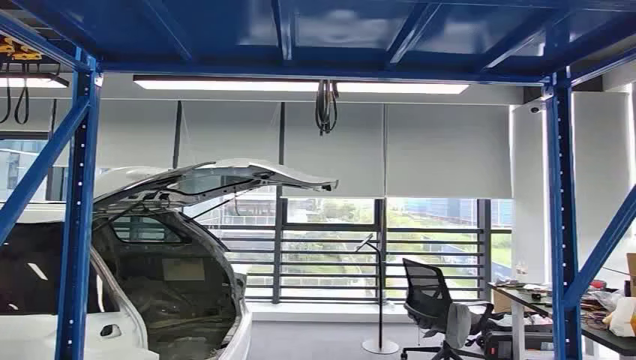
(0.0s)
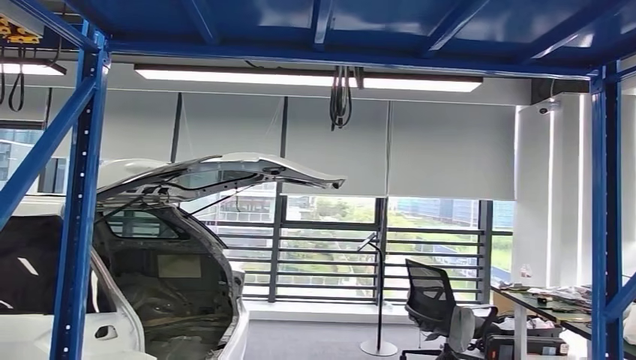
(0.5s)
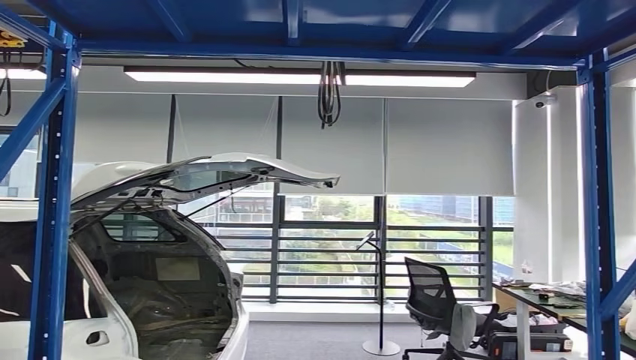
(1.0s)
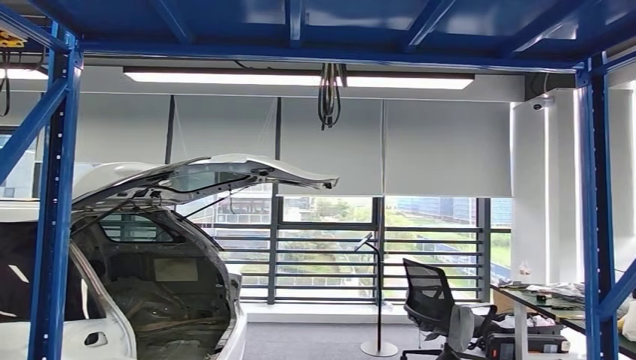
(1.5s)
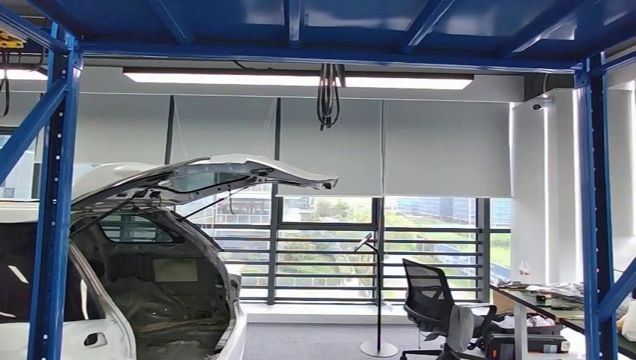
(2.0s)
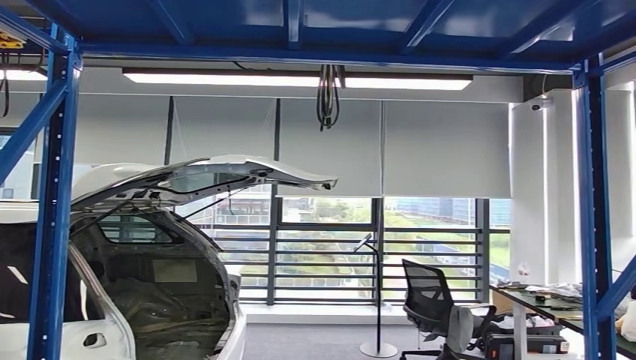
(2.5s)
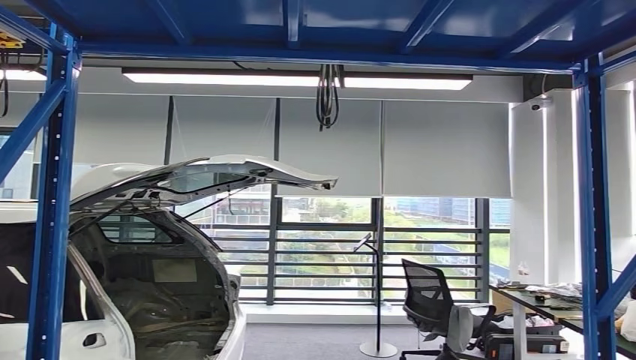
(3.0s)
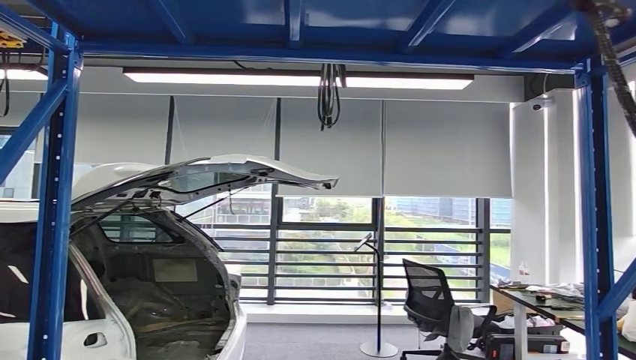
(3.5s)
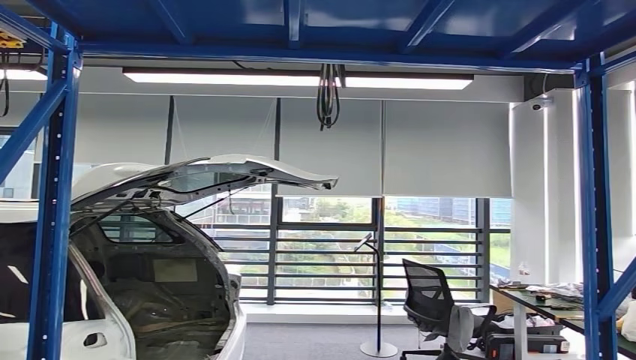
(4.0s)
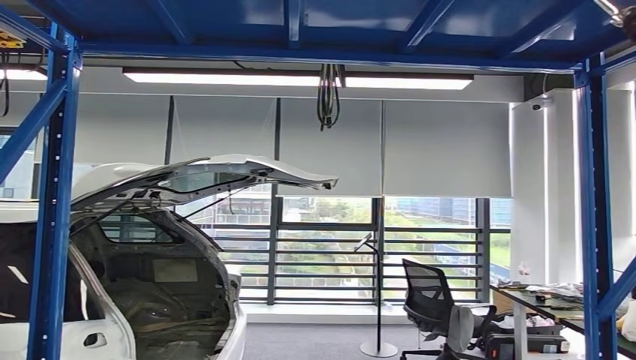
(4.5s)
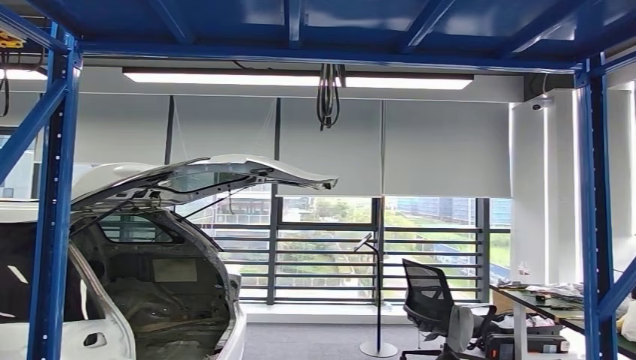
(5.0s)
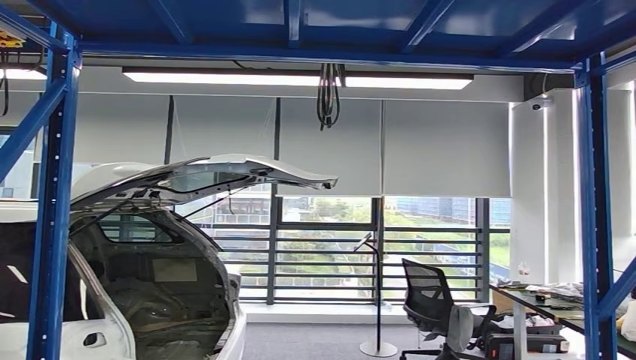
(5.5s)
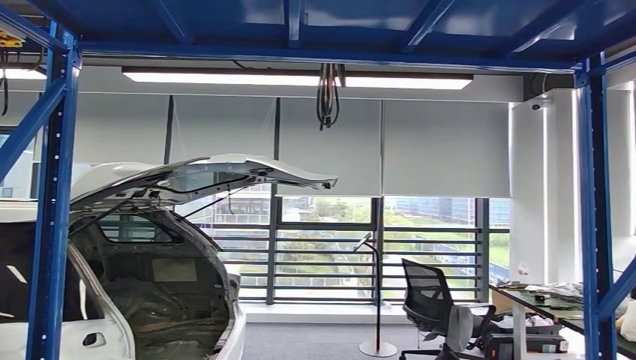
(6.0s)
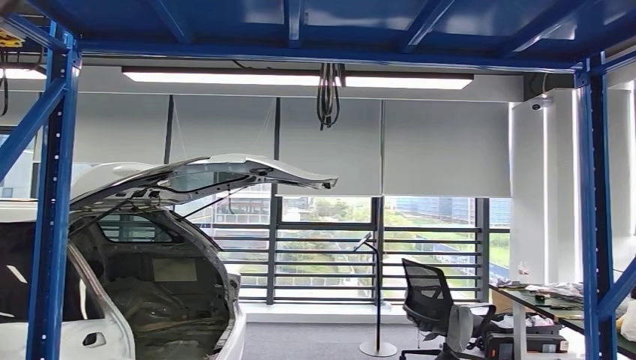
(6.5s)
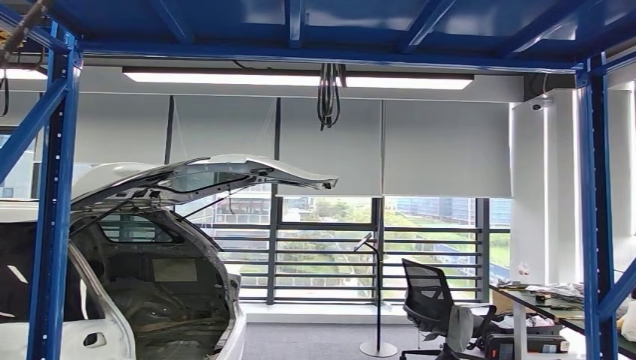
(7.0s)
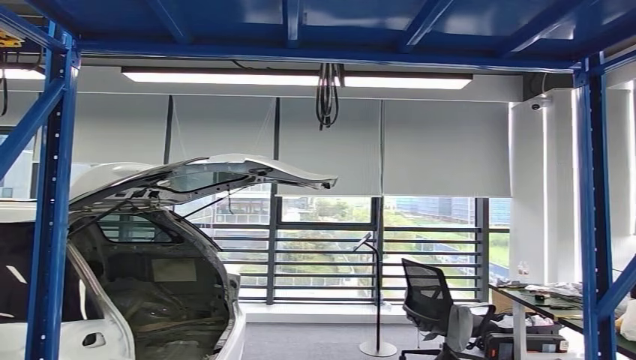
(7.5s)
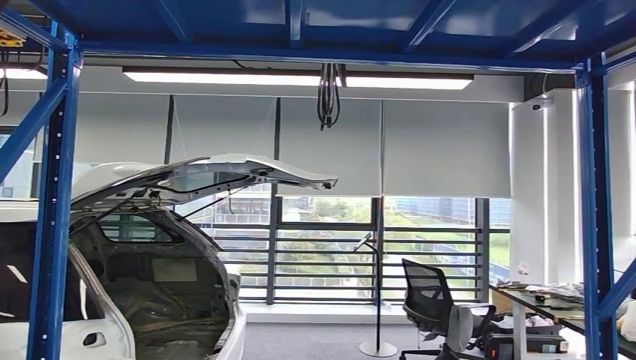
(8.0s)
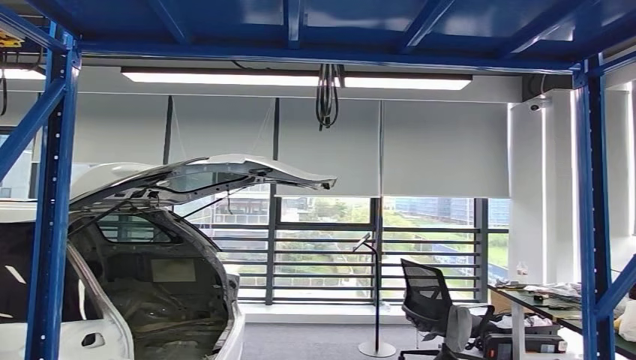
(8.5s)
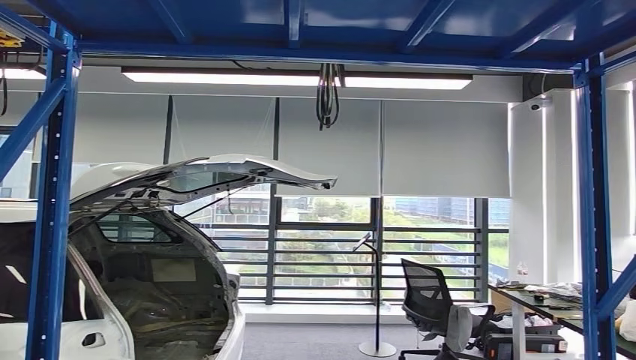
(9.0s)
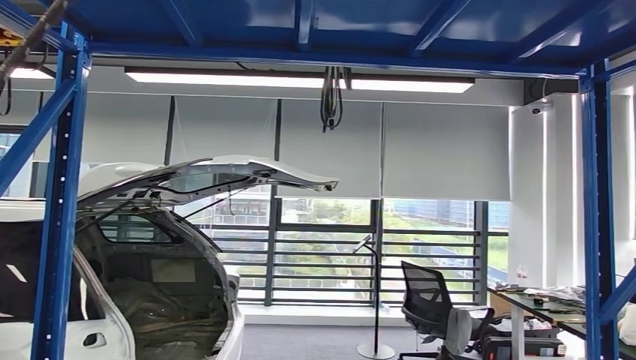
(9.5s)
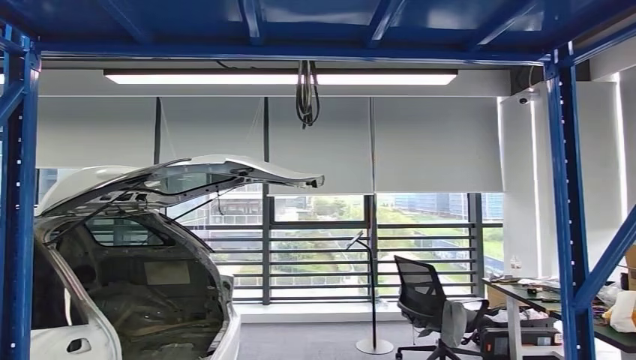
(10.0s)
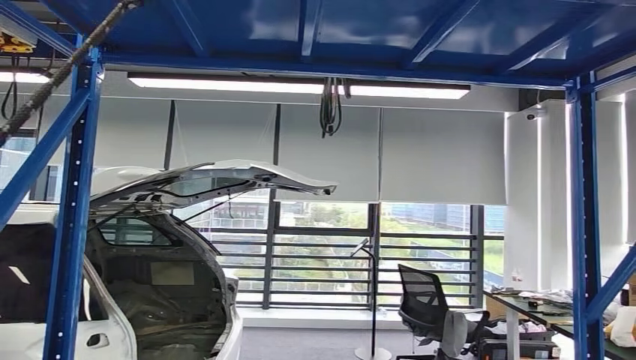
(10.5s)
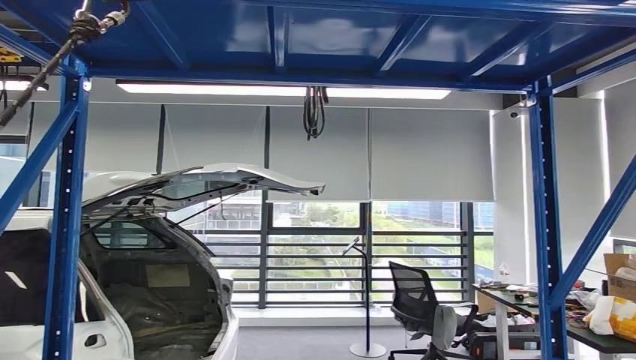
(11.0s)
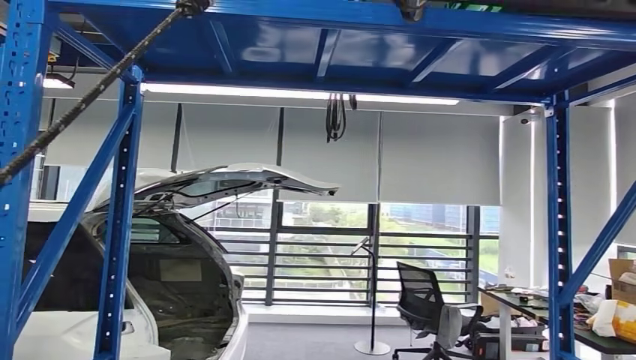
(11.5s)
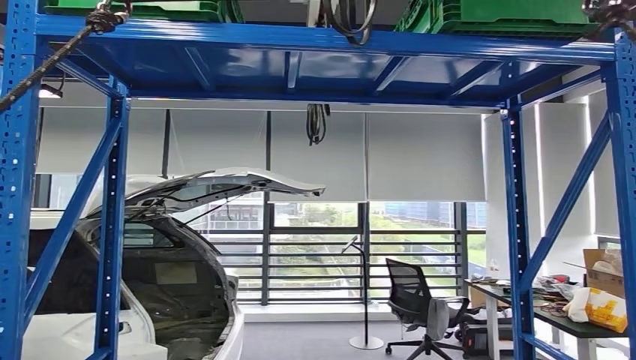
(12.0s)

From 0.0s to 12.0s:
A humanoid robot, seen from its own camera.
Step, from 0.0s to 7.0s: Pick up the small parts from the shelf.
From 4.0s to 6.0s: The right hand travels to the left by approximately 15 cm; the left hand shifts by some 5 cm.

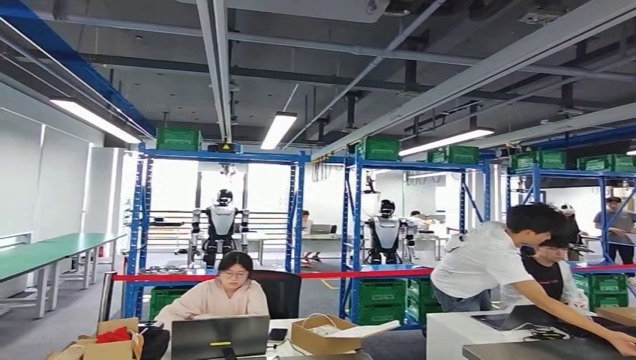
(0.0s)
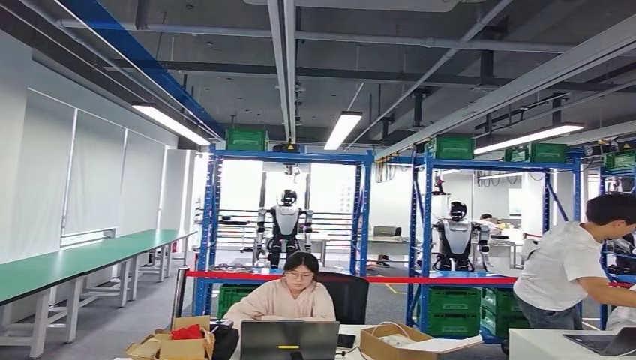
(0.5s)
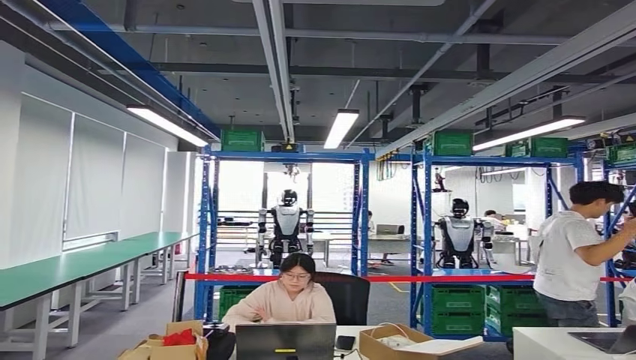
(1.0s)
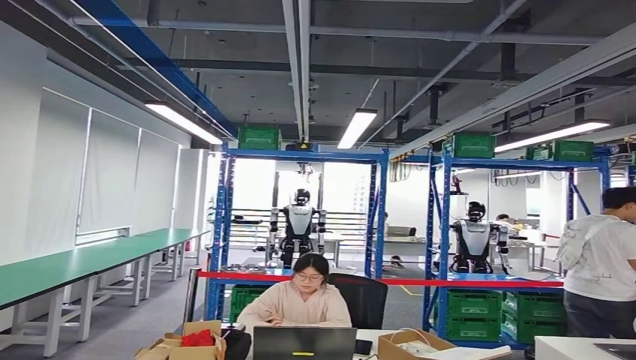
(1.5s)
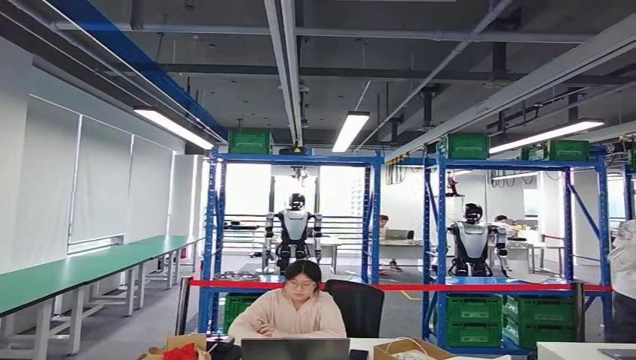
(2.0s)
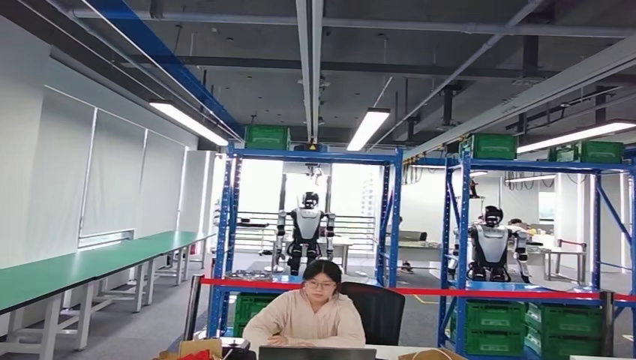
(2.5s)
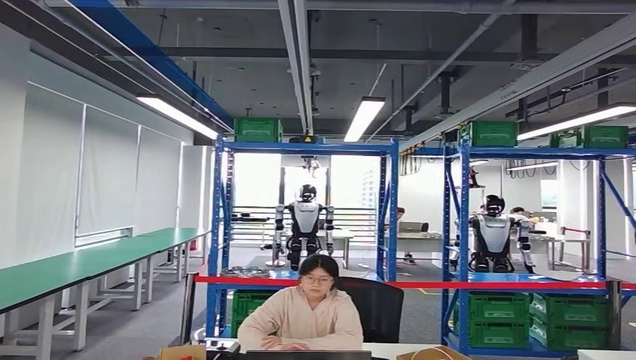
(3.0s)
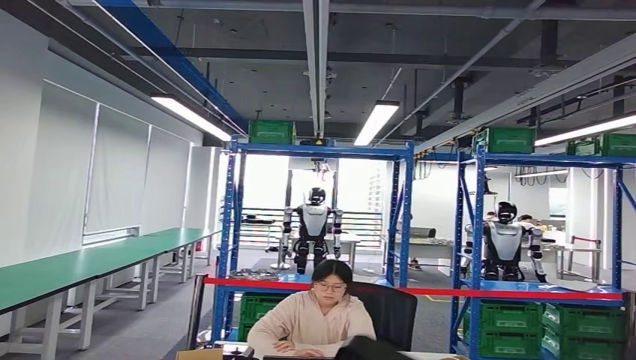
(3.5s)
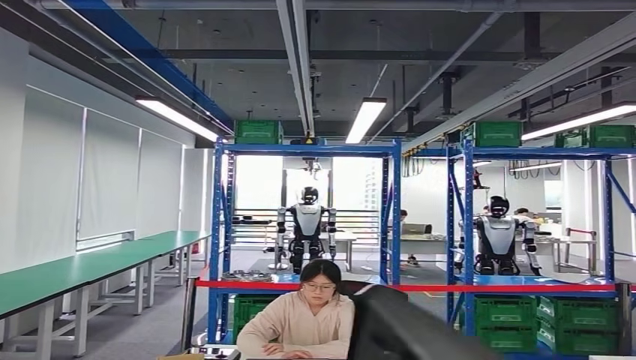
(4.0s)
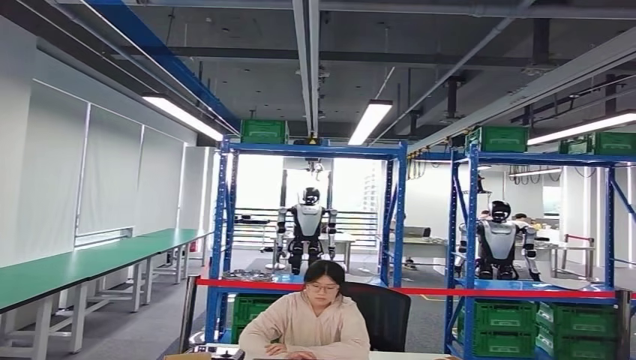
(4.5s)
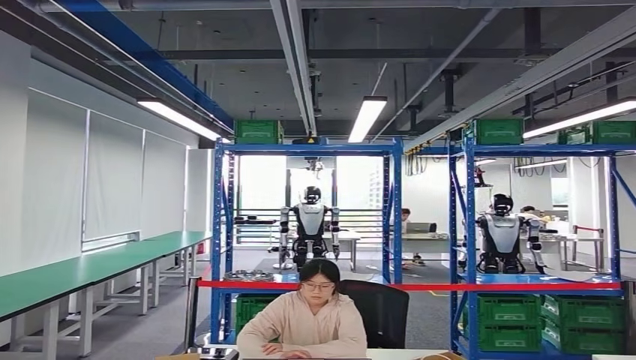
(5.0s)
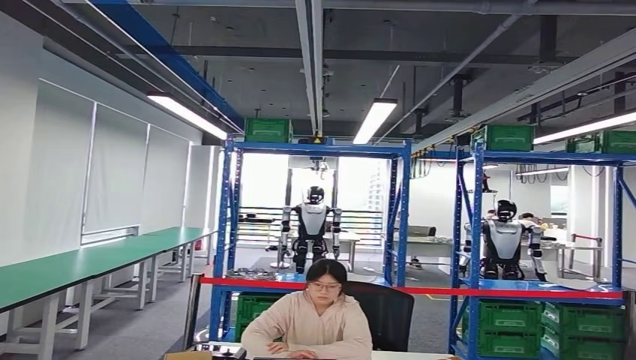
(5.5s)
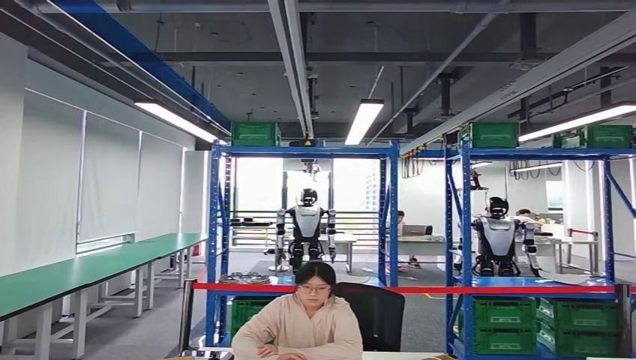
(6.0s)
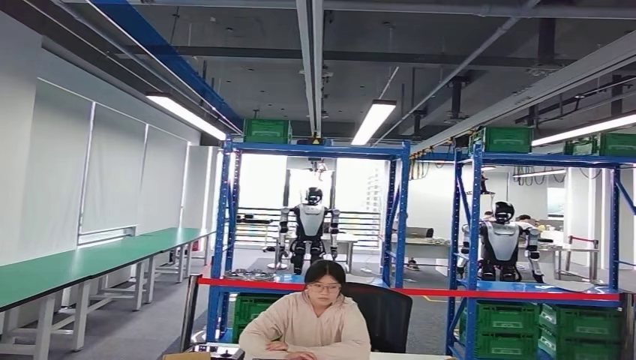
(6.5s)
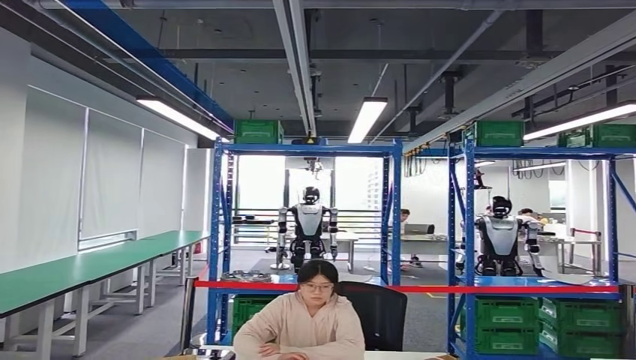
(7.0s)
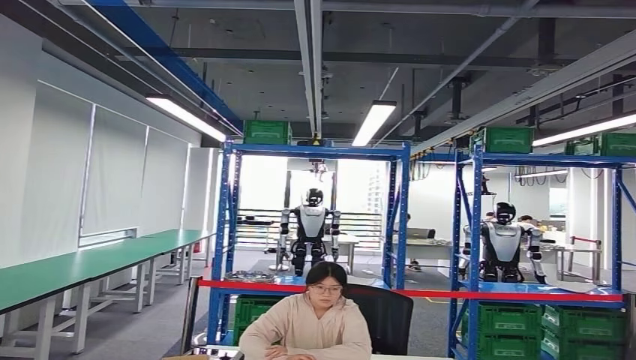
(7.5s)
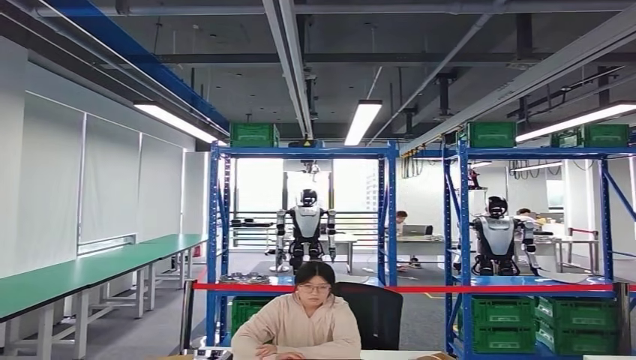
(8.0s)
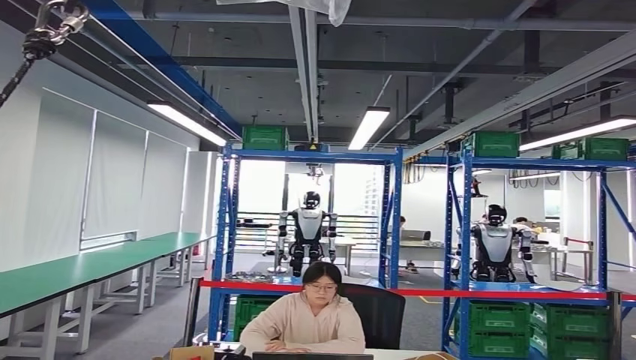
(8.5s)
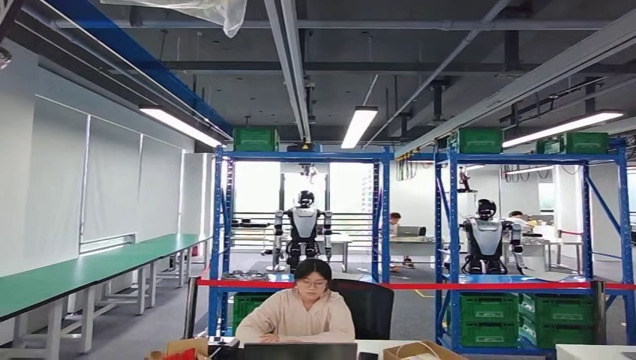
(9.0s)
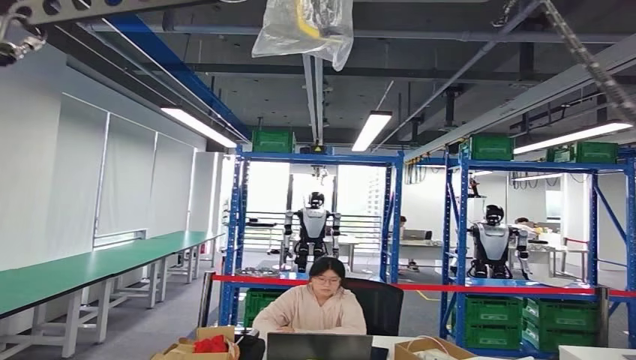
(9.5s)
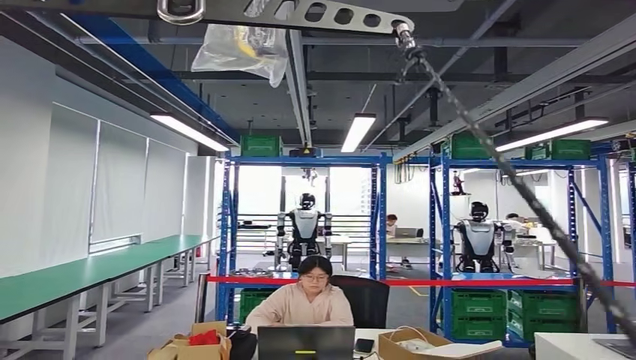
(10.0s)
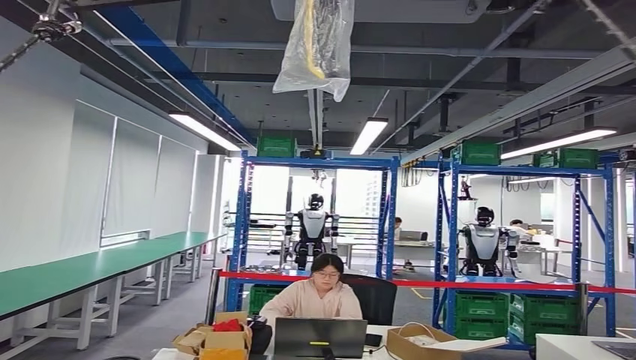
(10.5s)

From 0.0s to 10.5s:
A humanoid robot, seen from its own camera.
Step, from 1.5s to 7.0s: Insert the small parts into the corresponding slots on the workbench.
